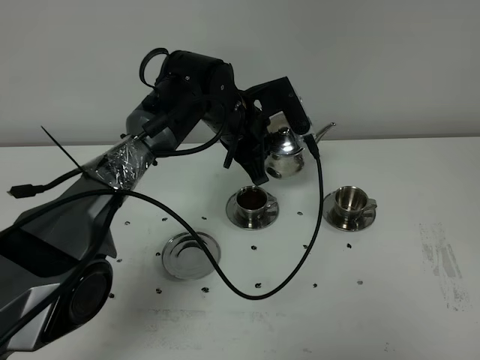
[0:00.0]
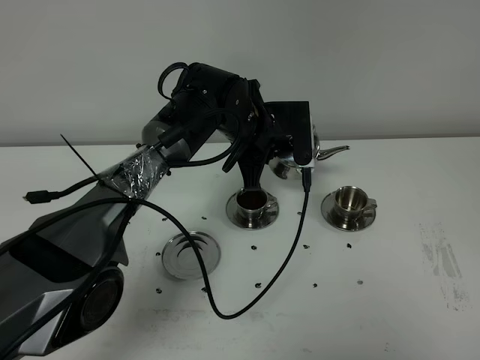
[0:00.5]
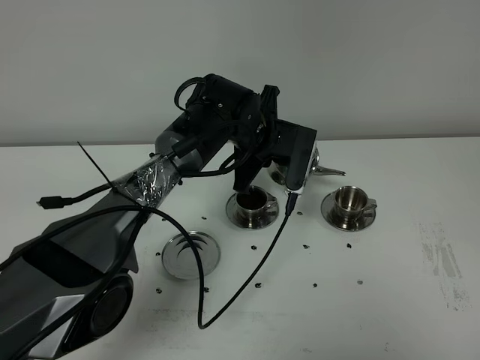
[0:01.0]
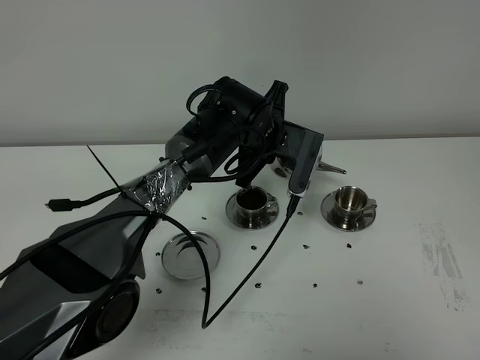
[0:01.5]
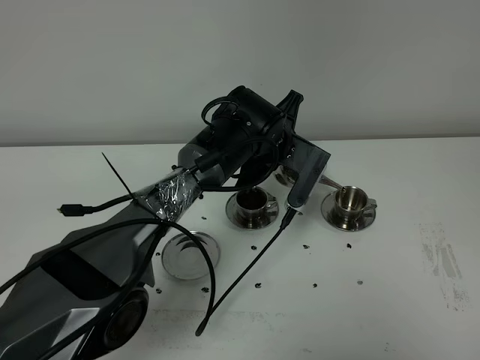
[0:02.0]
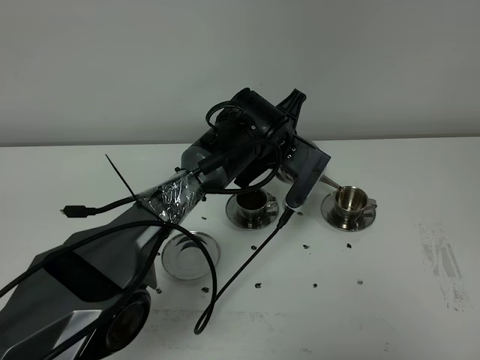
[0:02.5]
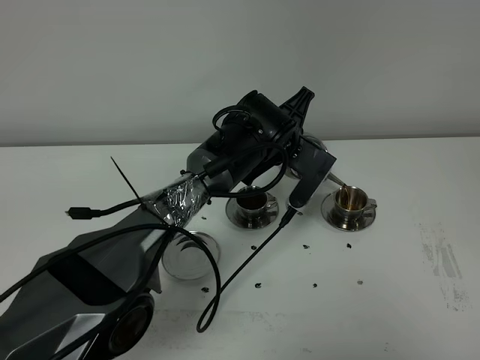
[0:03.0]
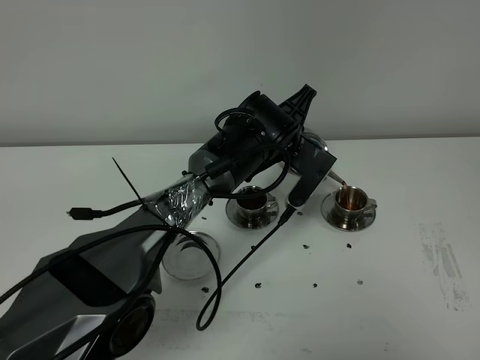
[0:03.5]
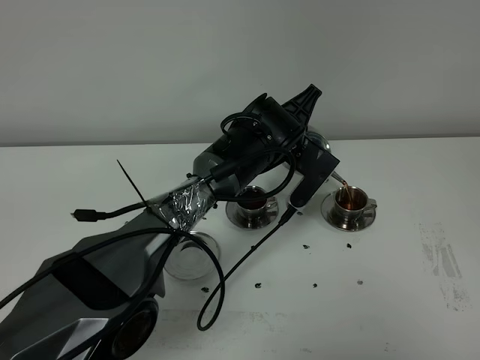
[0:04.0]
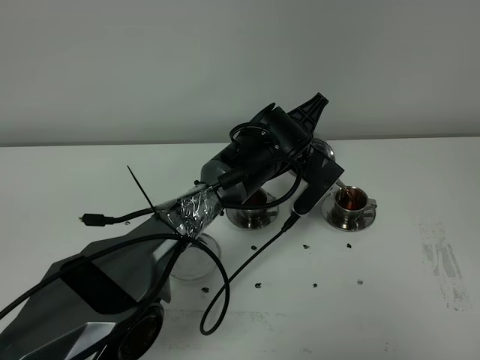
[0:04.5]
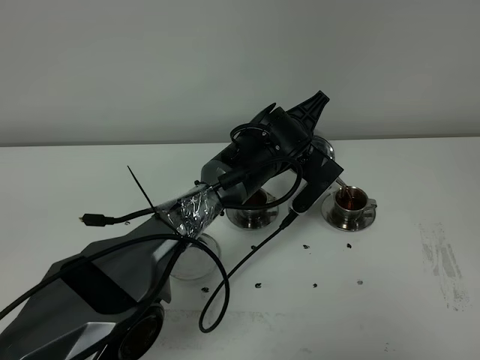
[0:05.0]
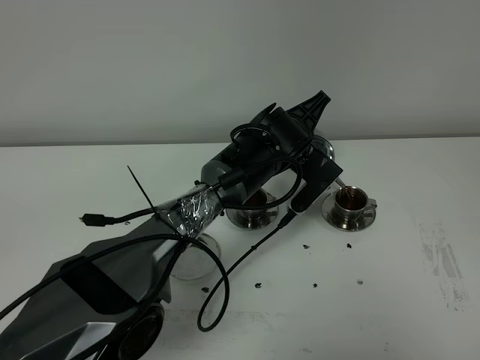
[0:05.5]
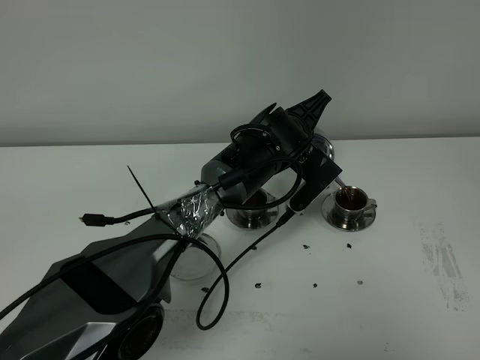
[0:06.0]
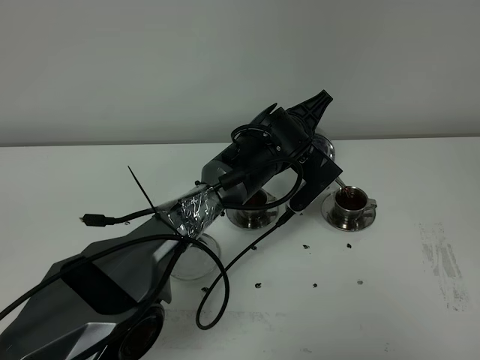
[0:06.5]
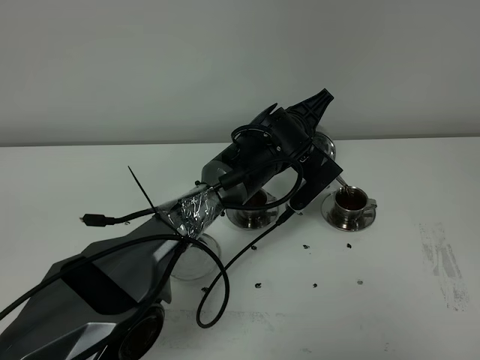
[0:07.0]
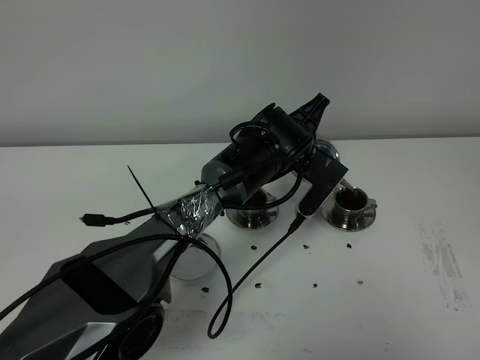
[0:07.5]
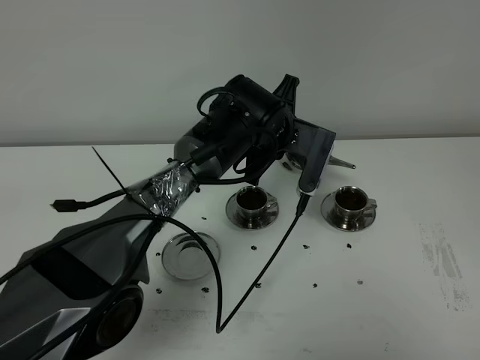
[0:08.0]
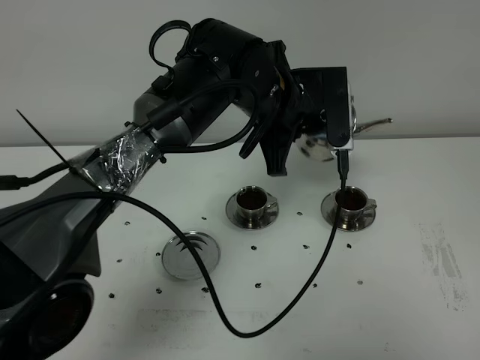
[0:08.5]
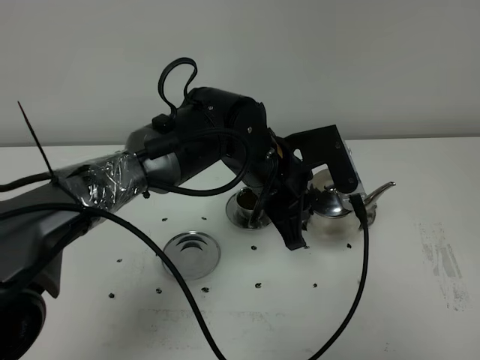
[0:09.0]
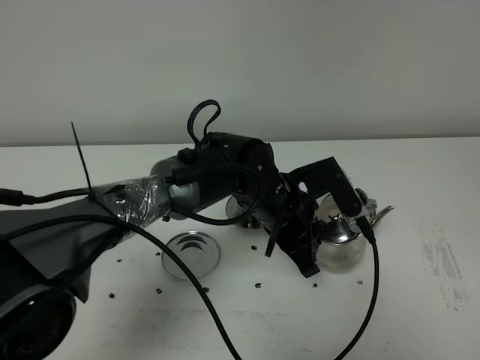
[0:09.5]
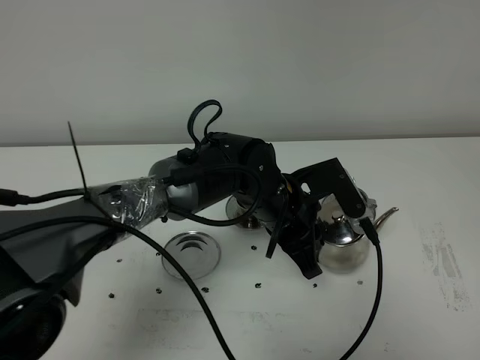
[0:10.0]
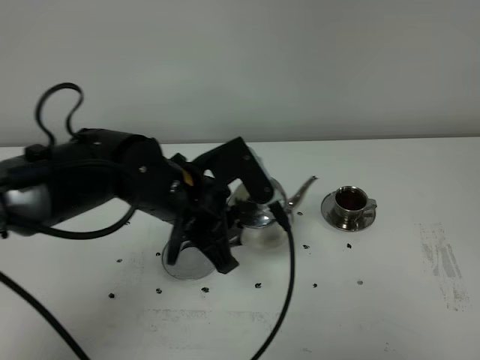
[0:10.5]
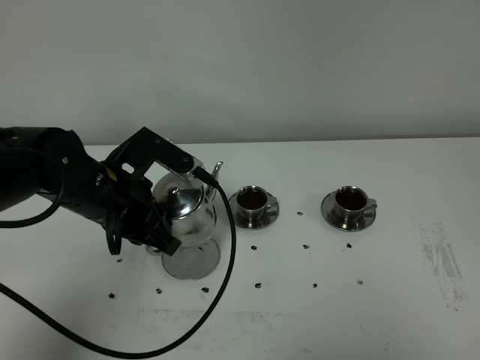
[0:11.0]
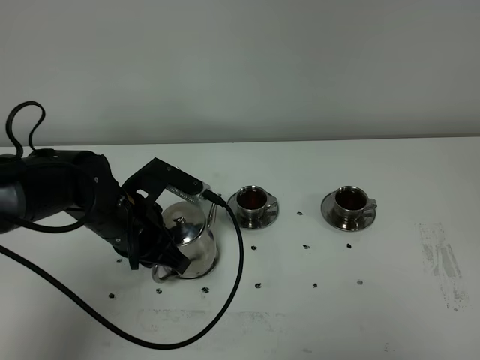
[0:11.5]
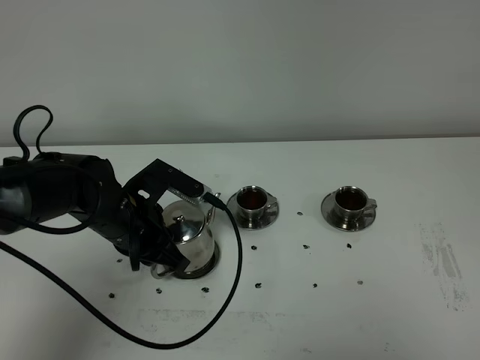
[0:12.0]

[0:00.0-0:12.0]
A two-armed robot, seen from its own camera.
Task of the whole recording: grasp the stainless steel teapot and pour the tea into the two stainless steel teacups one by one, put the stainless steel teapot back in its original place.
Step, 0:00.0 to 0:08.0: Pour tea into the teacup with the left gripper.
0:00.0 to 0:02.0: The left gripper ends up about 5 cm from where it was.
0:02.0 to 0:04.0: There are only small adjustments of the grippers.
0:04.0 to 0:06.0: There are only small adjustments of the grippers.
0:08.0 to 0:10.0: The left gripper is displaced backward by about 10 cm, and goes upward and returns, approximately 5 cm each way.
0:10.0 to 0:12.0: The left gripper moves to the left, roughly 20 cm.

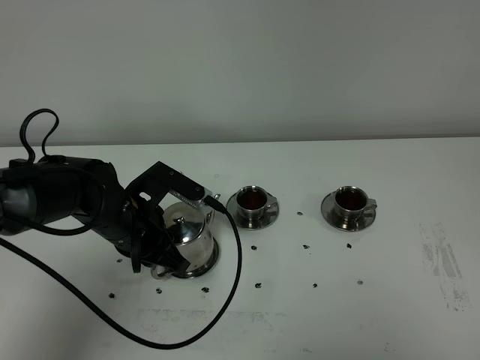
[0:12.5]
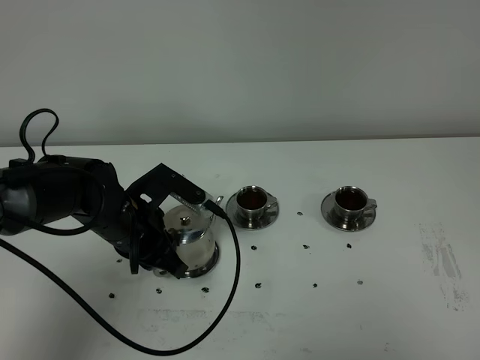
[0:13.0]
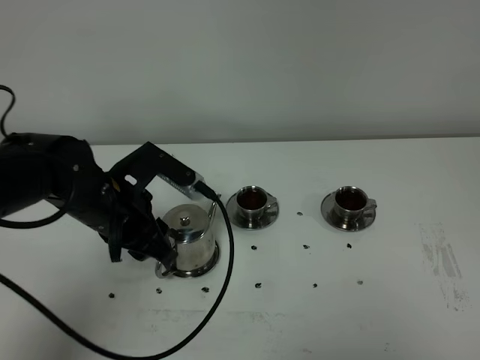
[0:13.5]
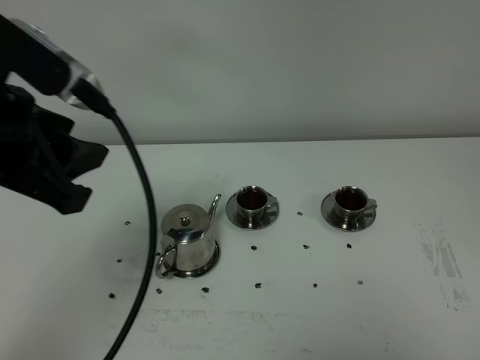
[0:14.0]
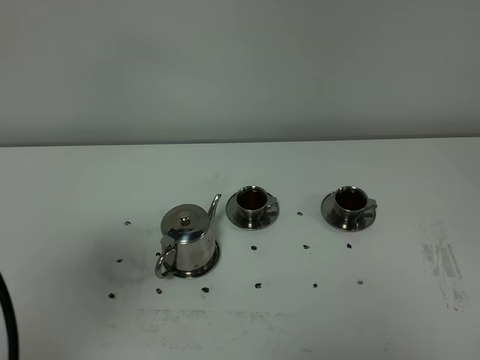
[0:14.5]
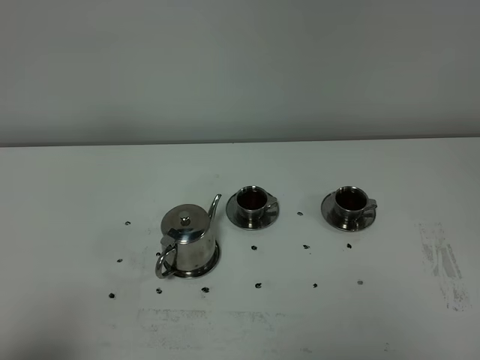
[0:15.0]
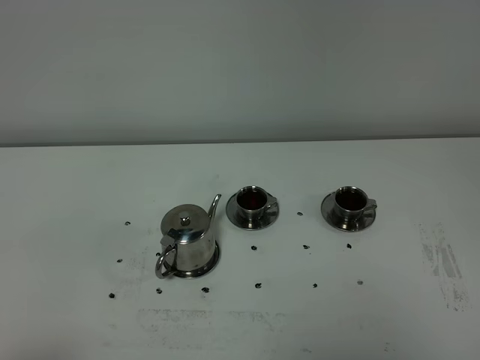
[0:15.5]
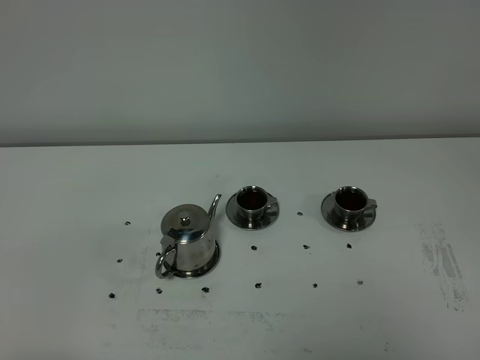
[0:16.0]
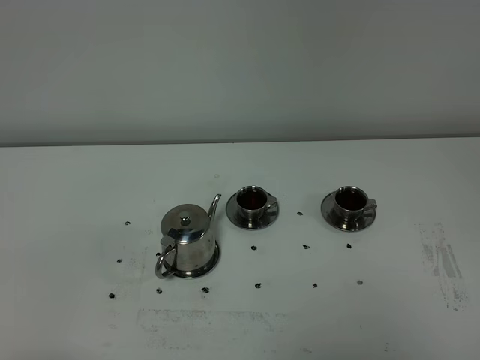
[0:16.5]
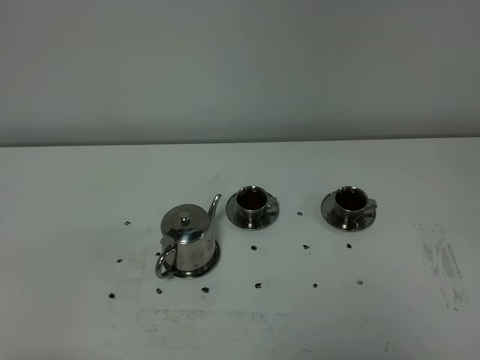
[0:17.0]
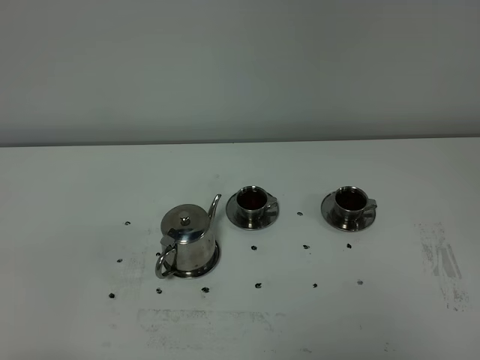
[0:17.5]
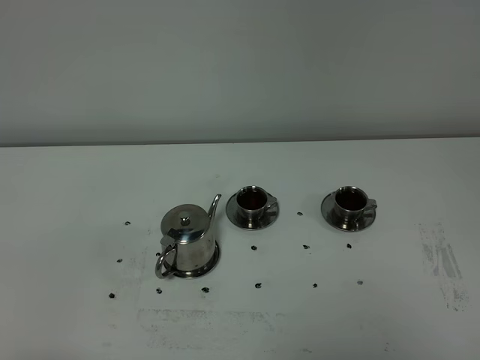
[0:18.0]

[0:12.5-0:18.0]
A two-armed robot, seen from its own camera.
Task of the whole recording: grasp the stainless steel teapot and pour the tea into the two stainless steel teacups one by one, put the stainless steel teapot back in its original place.
0:12.5 to 0:14.5: The left gripper heads upward, backward and to the left, covering some 35 cm, and opens up.
0:14.5 to 0:16.0: The left gripper shifts some 20 cm downward and backward.
0:16.0 to 0:18.0: Neither gripper changes place.

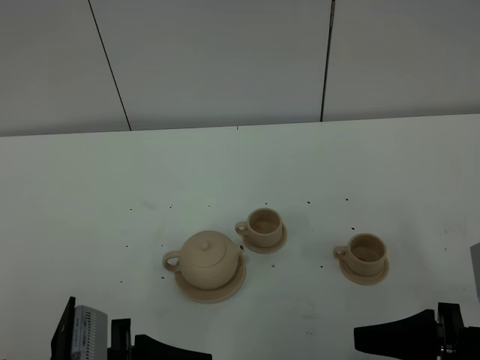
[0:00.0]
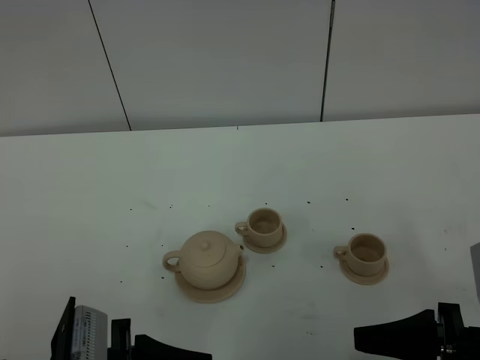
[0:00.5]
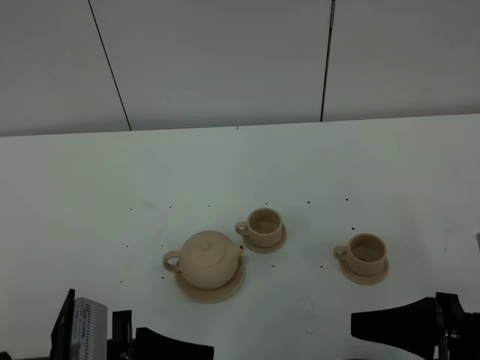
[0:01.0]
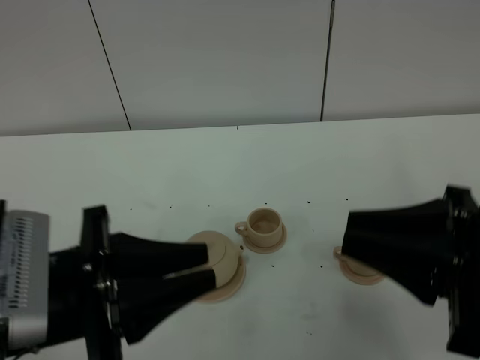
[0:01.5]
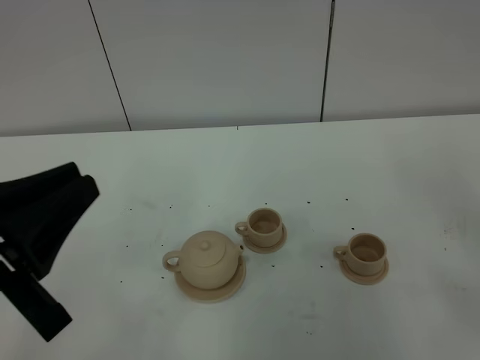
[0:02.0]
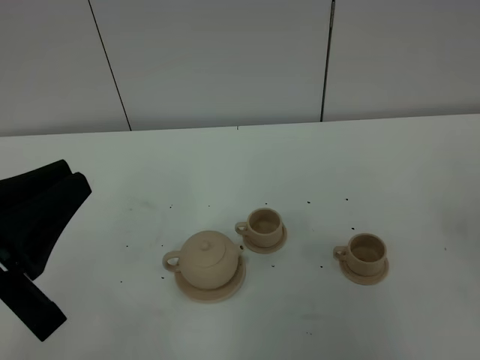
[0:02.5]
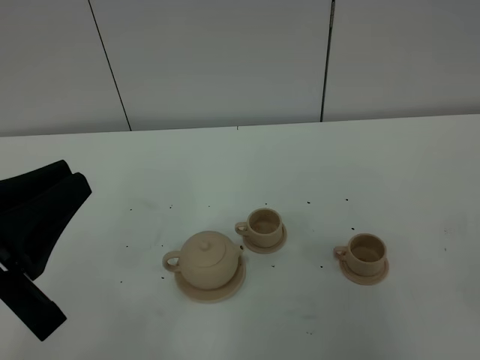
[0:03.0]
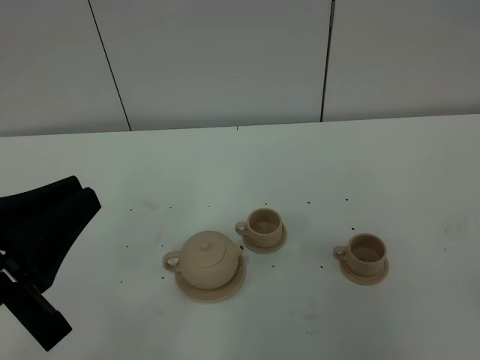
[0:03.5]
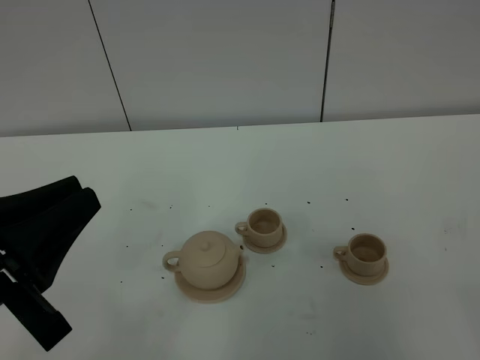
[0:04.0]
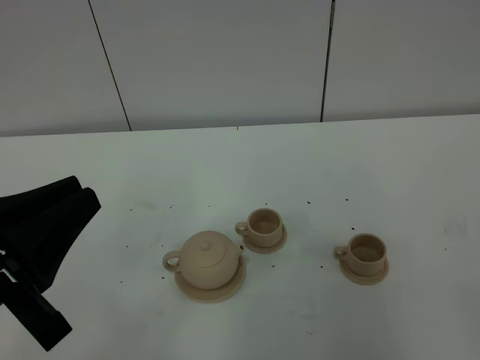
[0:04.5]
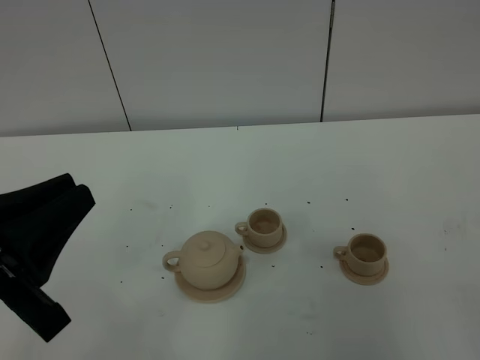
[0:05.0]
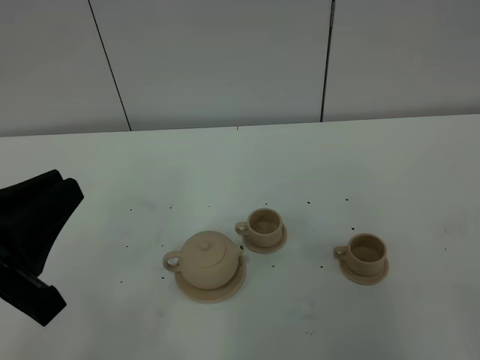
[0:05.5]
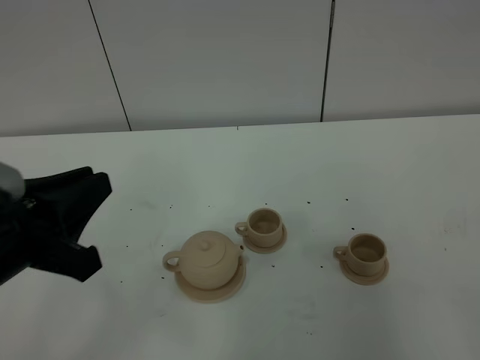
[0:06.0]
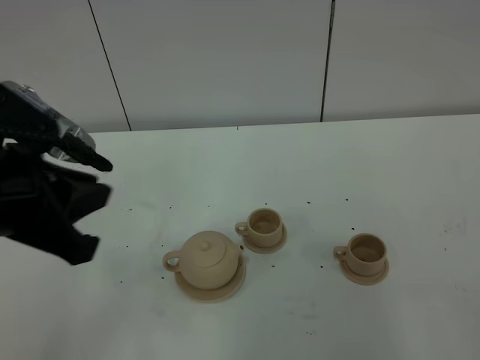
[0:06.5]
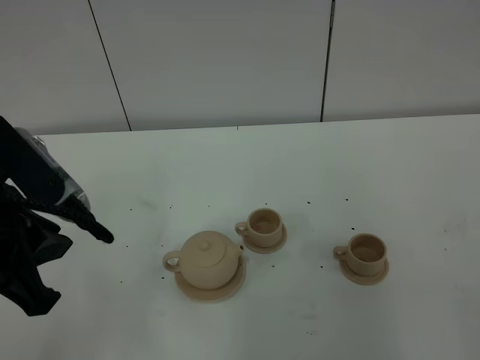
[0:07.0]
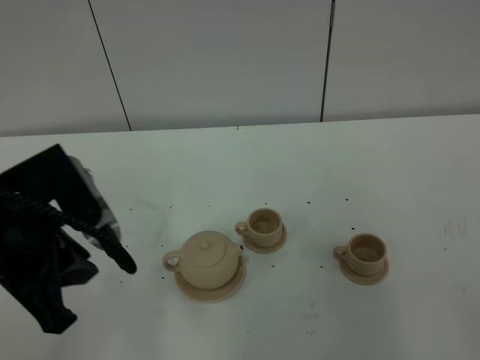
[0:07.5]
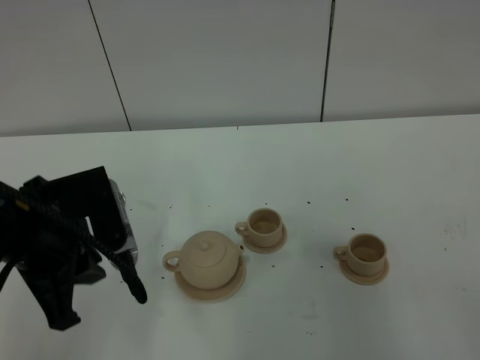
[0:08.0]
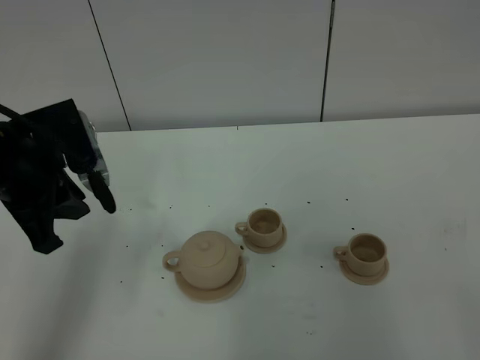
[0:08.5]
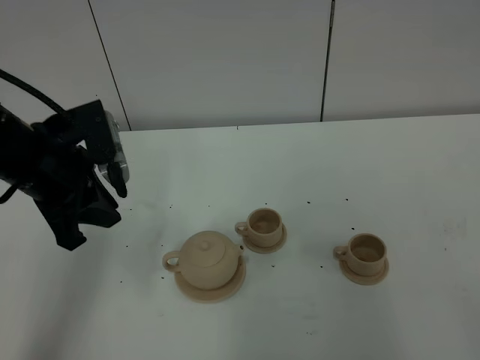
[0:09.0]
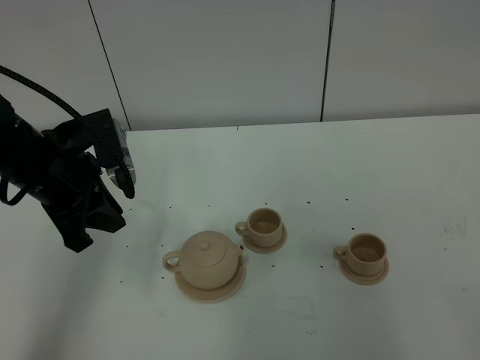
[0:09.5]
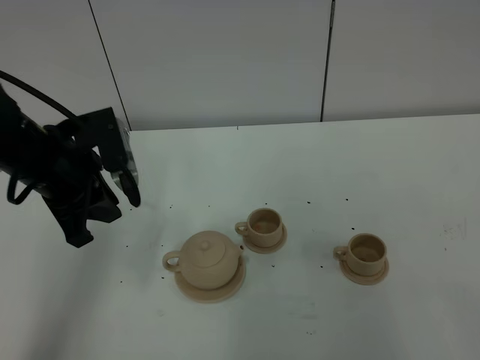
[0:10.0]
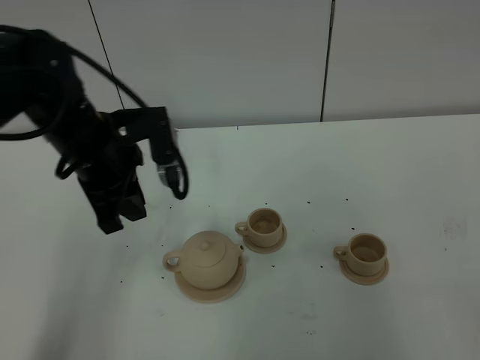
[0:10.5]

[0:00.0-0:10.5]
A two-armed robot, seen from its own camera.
Task of the whole recording: grasp the brown teapot and pour the tea into the two brown teacups one by one, put the brown teapot back in its original place.
0:00.0 to 0:02.0: The grippers both shift upward by roughly 15 cm. The left gripper closes up, while the right gripper closes up.
0:04.0 to 0:06.5: The left gripper heads forward, covering roughly 10 cm.
0:06.5 to 0:08.5: The left gripper shifts some 10 cm forward.
0:08.5 to 0:10.5: The left gripper travels to the right and forward by some 10 cm.
